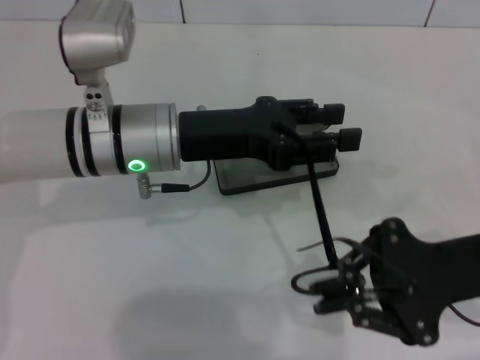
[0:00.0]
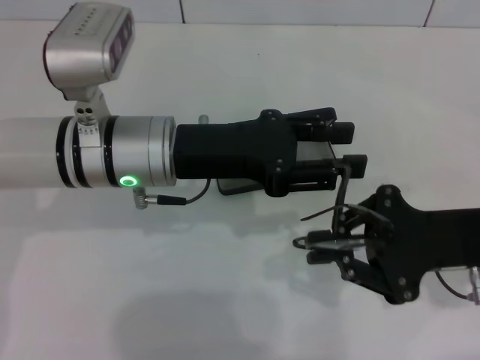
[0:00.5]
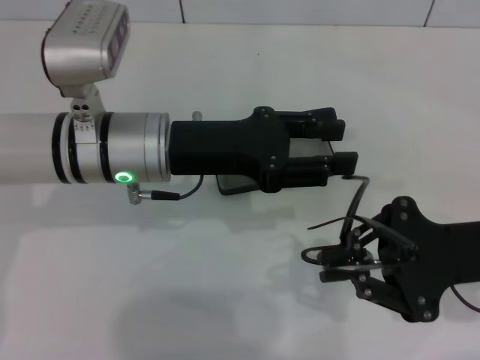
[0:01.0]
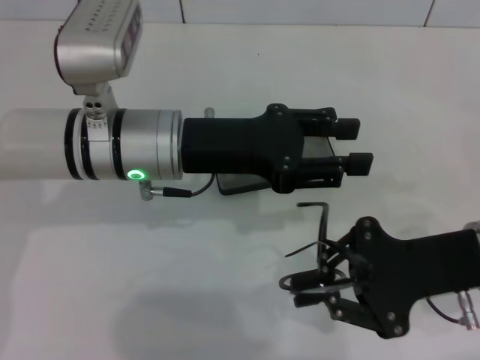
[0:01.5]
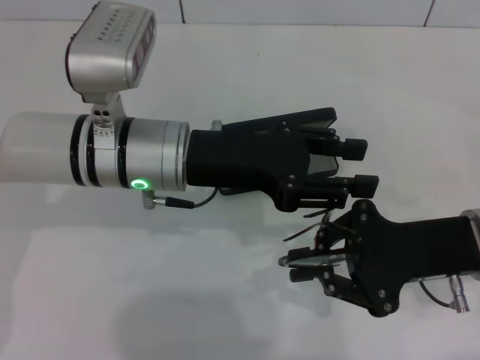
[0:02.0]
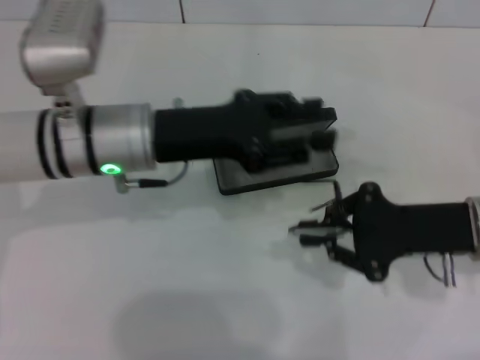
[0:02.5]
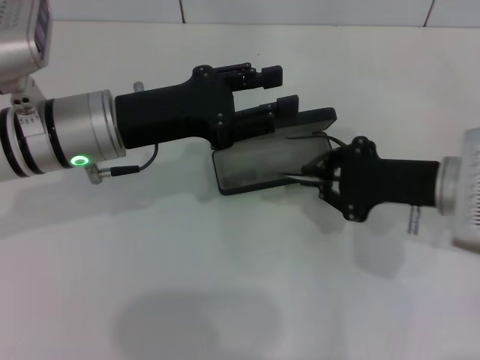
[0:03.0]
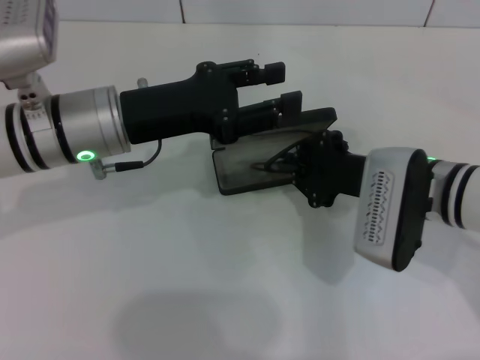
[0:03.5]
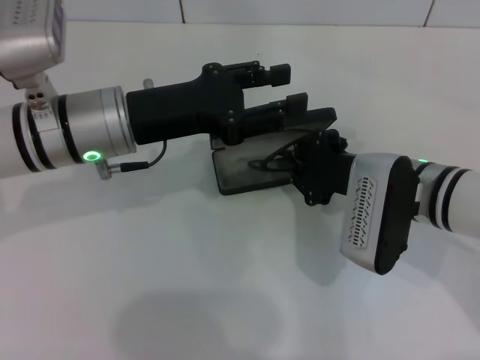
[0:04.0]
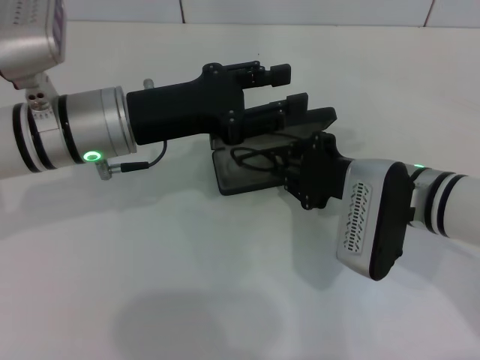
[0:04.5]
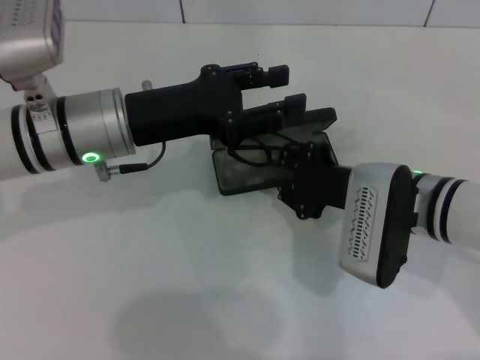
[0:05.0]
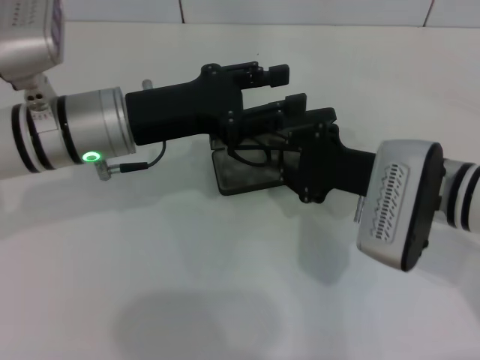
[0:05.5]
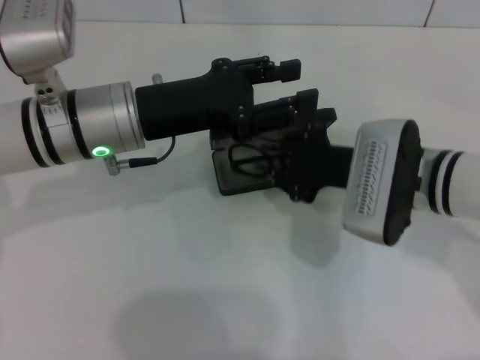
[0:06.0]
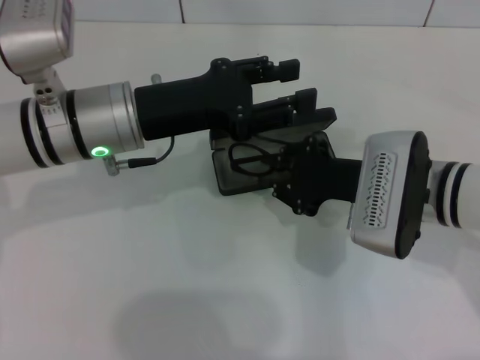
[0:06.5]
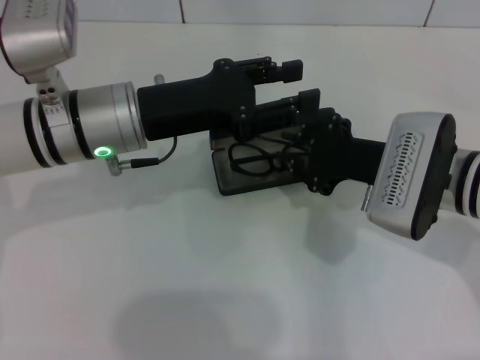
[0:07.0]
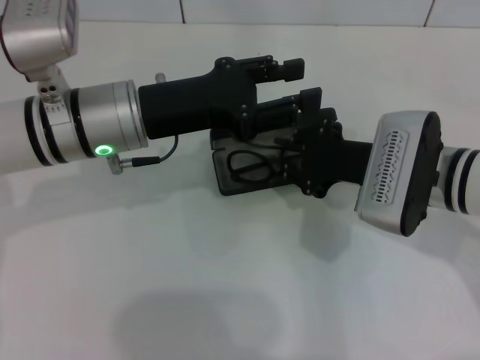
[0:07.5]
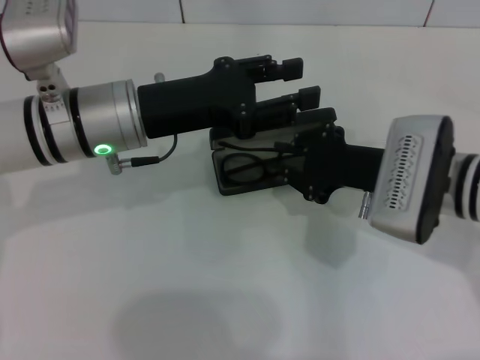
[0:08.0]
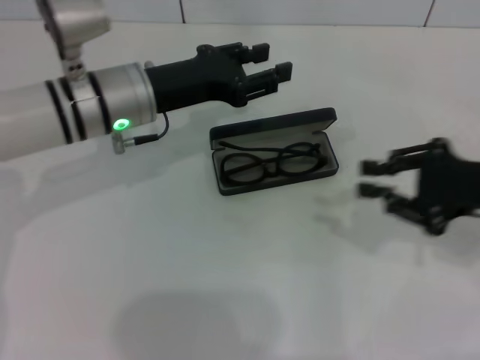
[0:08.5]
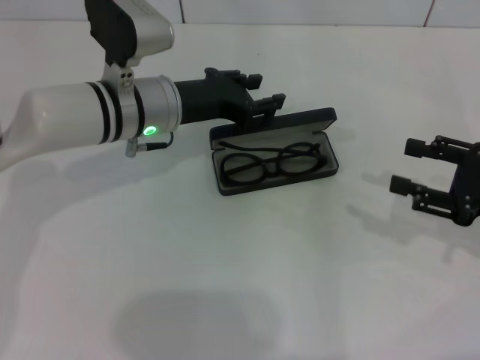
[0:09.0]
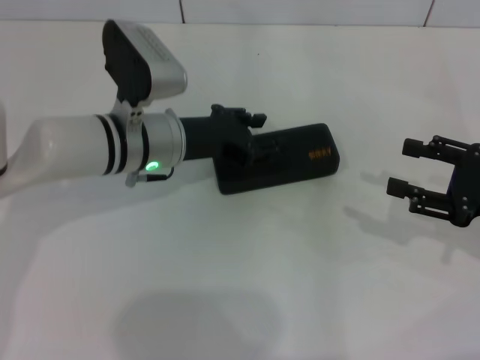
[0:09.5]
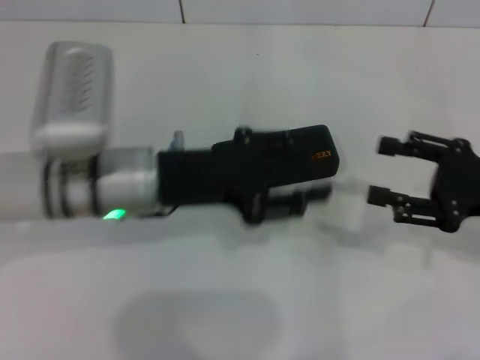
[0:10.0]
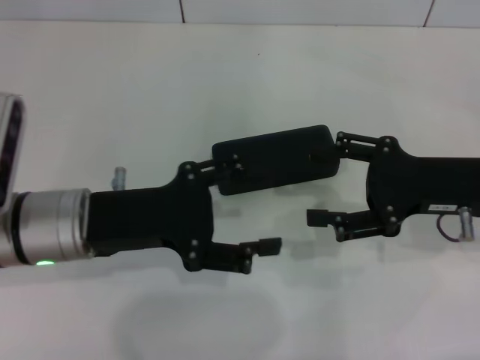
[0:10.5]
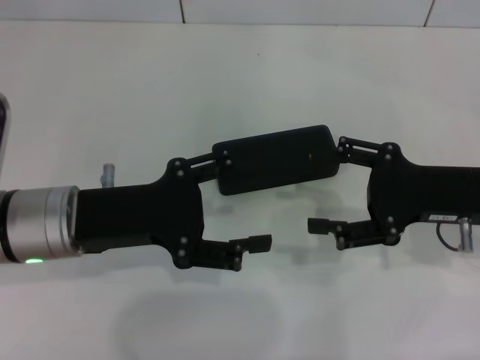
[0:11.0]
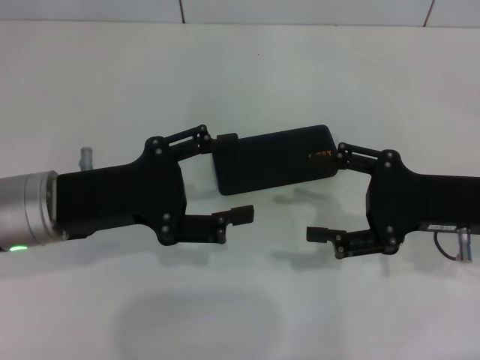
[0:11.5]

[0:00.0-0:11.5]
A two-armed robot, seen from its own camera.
Step, 0:00.0 to 0:02.0: Fold the frame with your left hand.
Step, 0:02.5 to 0:07.5: Put the glasses into the case with your right hand.
Step, 0:08.0 to 0:09.5: Close the glasses case with your left hand.
0:02.0 to 0:04.0: The right gripper travels to the left by about 5 cm, while the left gripper shifts by roughly 5 cm.
0:04.0 to 0:07.5: The grippers stay close to where they were, moving slightly.
0:07.5 to 0:09.5: The left gripper is displaced downward by about 5 cm; the right gripper travels to the right by roughly 15 cm, and opens up.
0:09.5 to 0:11.5: The left gripper shifts approximately 15 cm backward and to the left, and opens. Meanwhile the right gripper moves to the left, about 10 cm.
